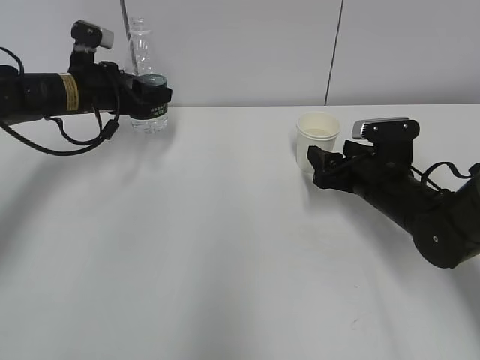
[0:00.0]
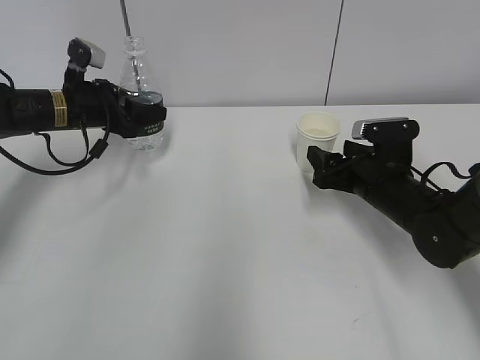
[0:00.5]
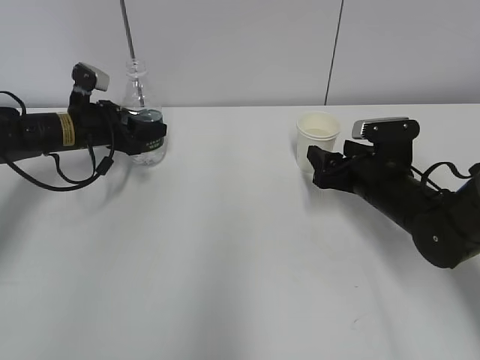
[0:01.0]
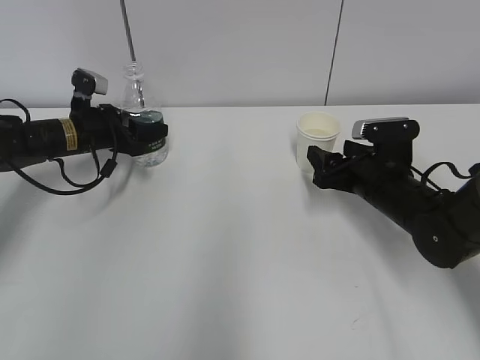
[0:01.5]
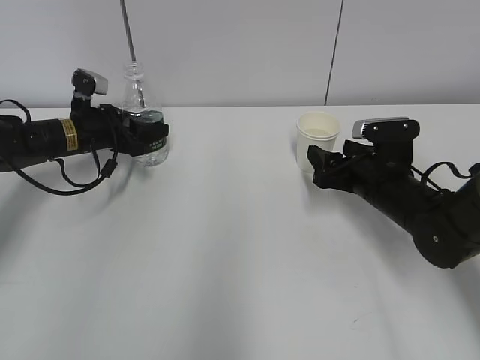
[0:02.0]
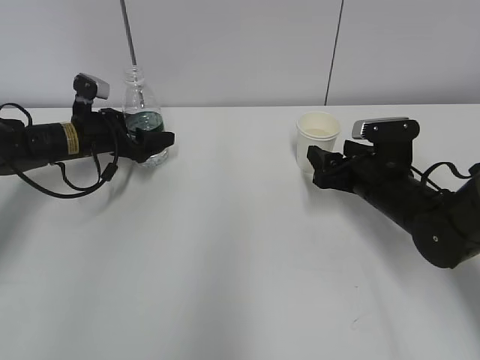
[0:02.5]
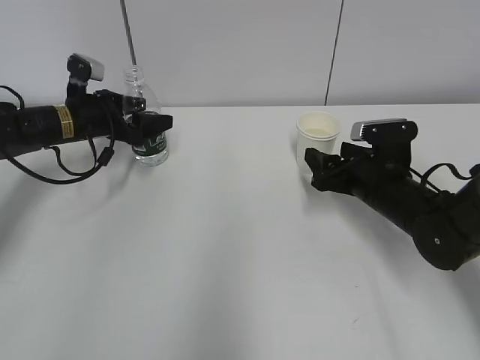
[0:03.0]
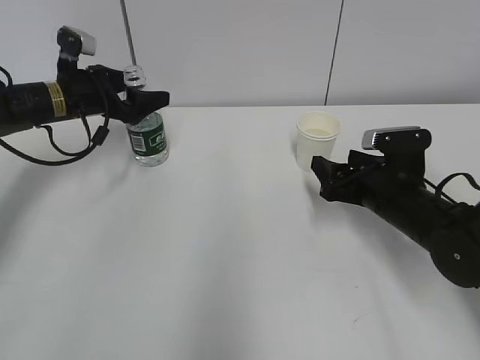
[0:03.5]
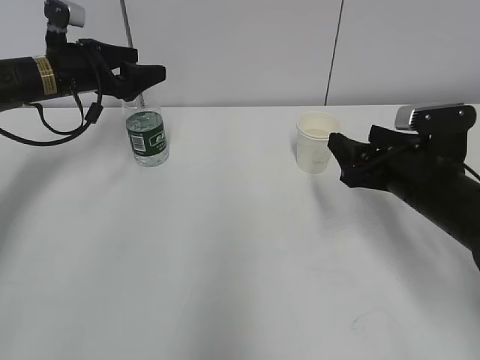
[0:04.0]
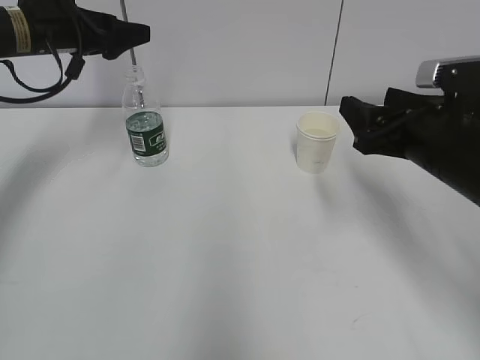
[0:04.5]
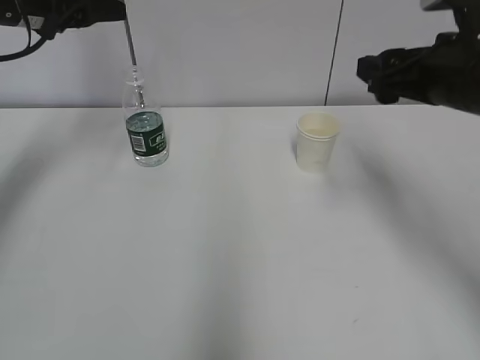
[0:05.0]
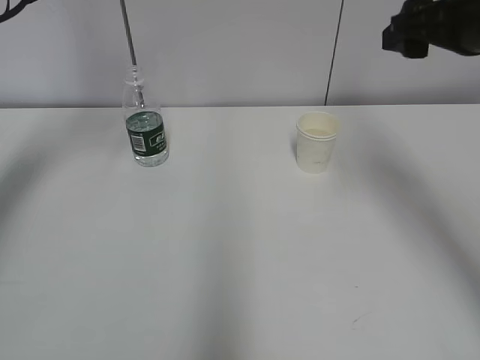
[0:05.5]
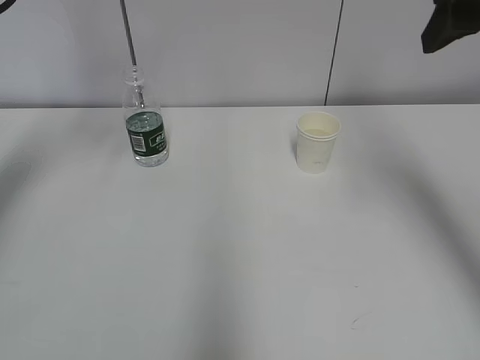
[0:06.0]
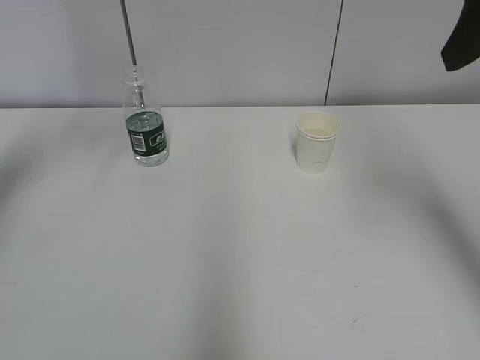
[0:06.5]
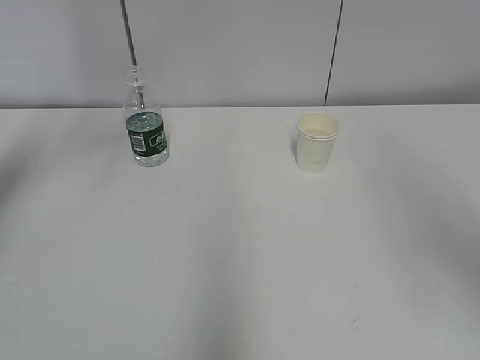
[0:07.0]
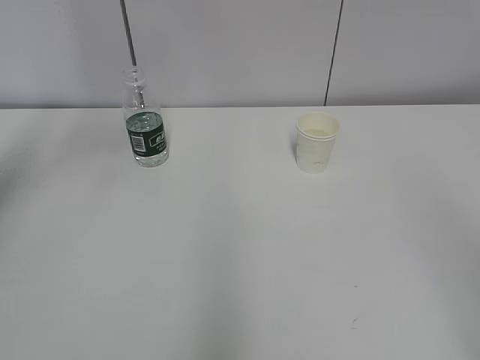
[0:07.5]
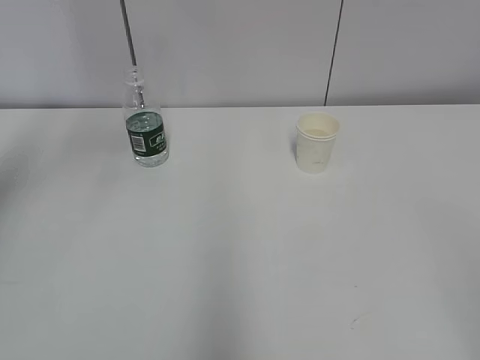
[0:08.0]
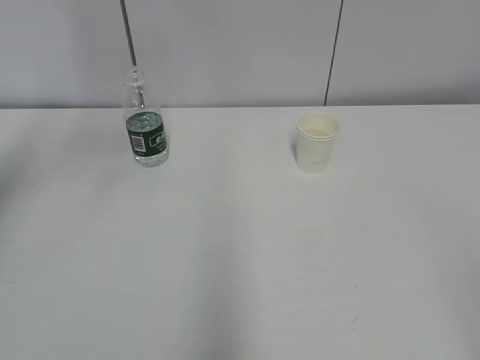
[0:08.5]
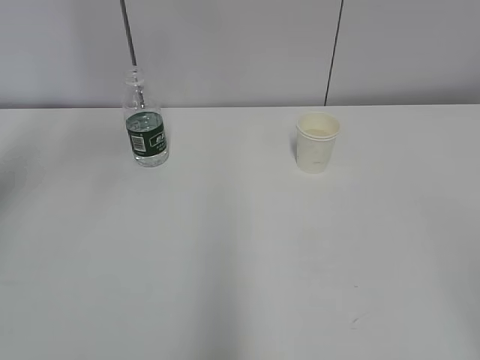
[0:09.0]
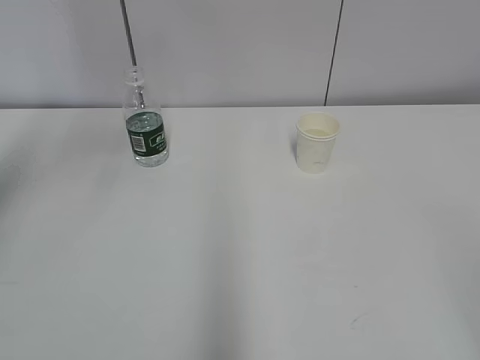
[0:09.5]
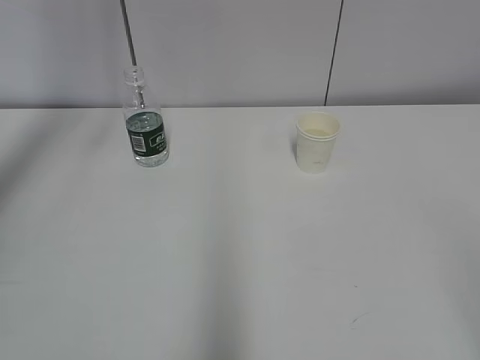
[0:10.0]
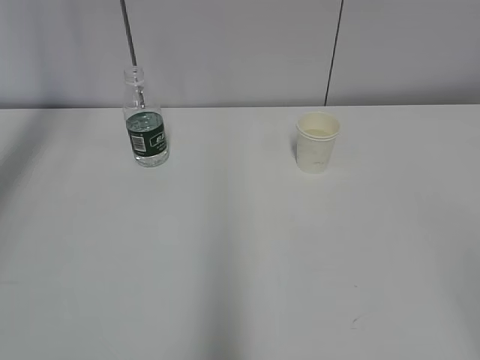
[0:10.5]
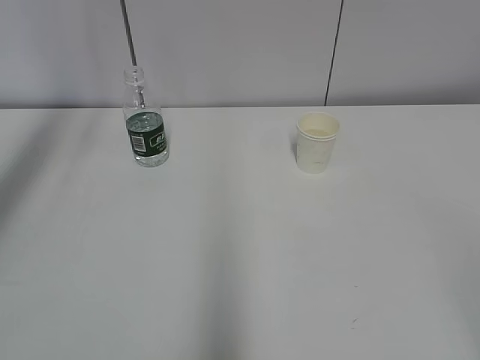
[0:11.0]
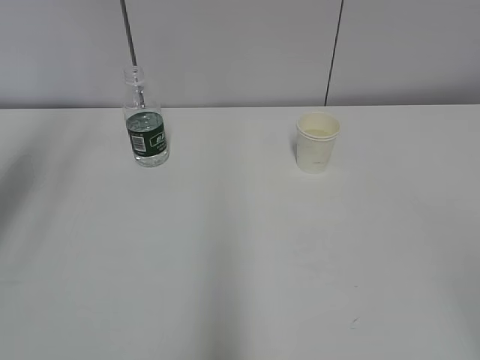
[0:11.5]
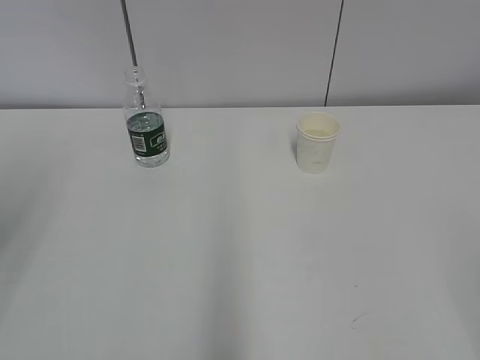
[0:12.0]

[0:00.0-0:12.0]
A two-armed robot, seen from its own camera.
0:00.0 to 0:02.0: The left gripper heads downward, covering roughly 10 cm.
0:02.0 to 0:04.0: The right gripper goes roughly 10 cm backward and upward. The left gripper goes some 10 cm upward, and opens its fingers.
0:04.0 to 0:06.0: The left gripper travels upward and backward by roughly 20 cm. Meanwhile the right gripper moves upward, about 25 cm.
0:06.0 to 0:08.0: The right gripper shifts about 30 cm backward, and closes its fingers.
0:10.0 to 0:12.0: The left gripper shifts about 20 cm backward and downward.
